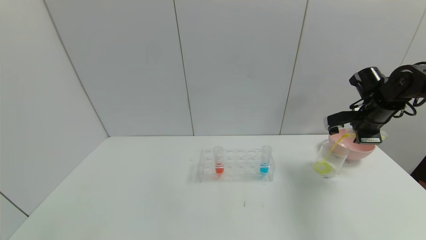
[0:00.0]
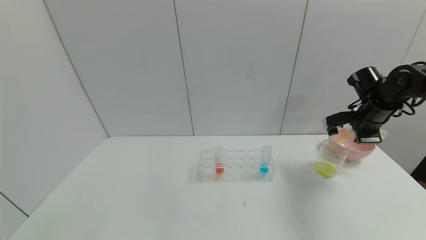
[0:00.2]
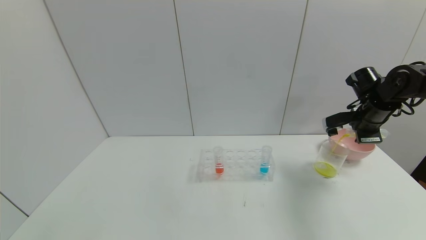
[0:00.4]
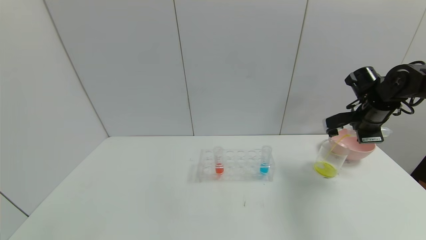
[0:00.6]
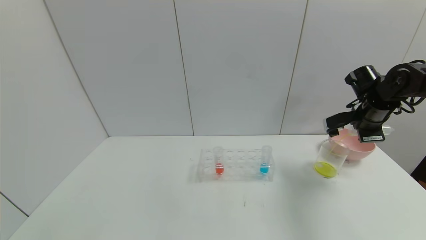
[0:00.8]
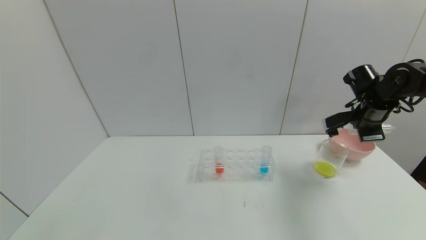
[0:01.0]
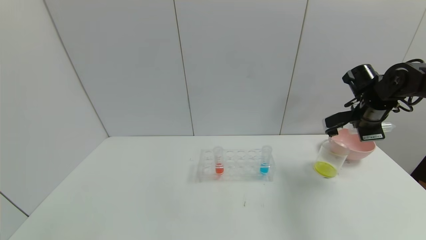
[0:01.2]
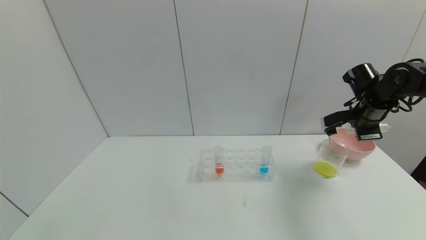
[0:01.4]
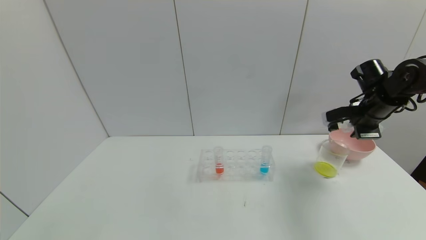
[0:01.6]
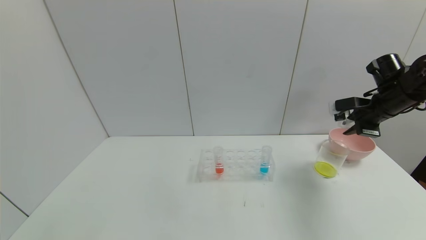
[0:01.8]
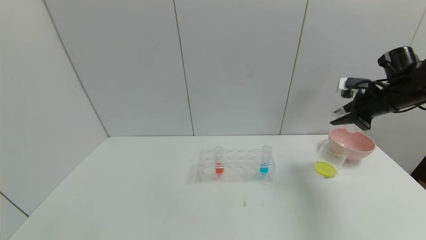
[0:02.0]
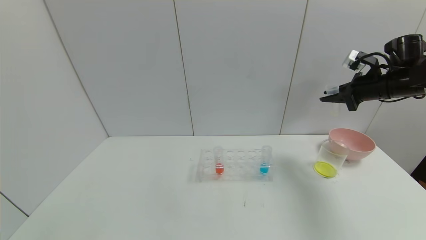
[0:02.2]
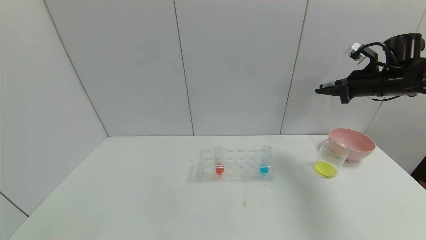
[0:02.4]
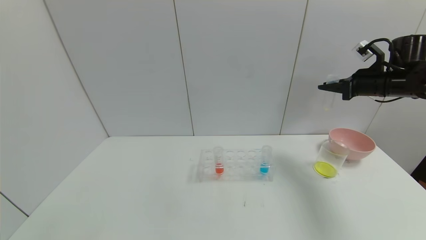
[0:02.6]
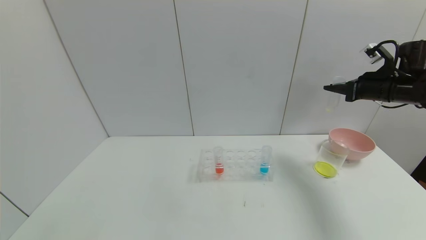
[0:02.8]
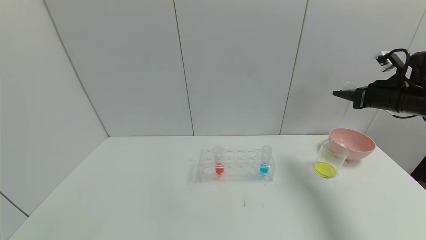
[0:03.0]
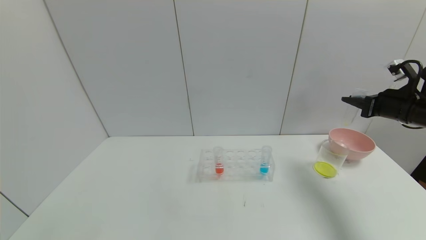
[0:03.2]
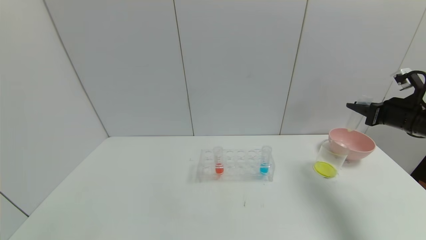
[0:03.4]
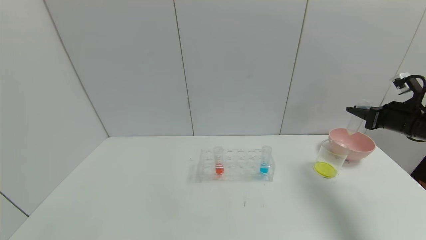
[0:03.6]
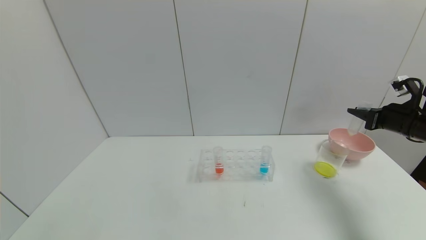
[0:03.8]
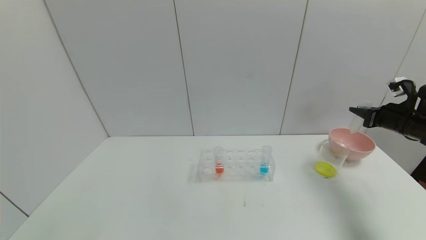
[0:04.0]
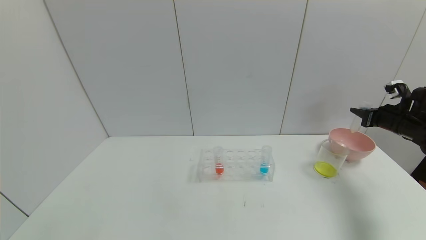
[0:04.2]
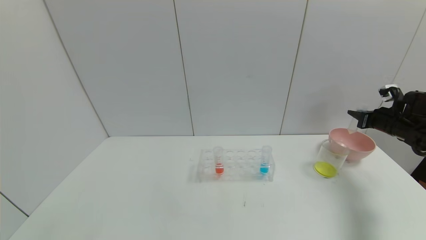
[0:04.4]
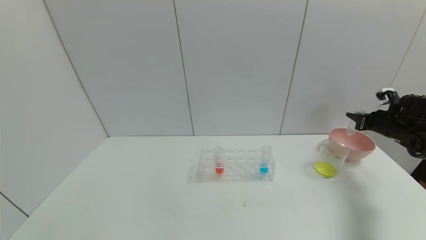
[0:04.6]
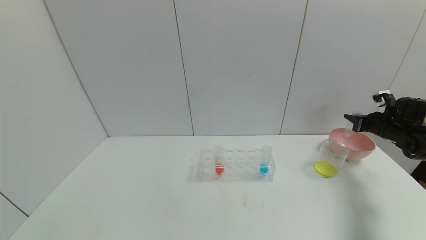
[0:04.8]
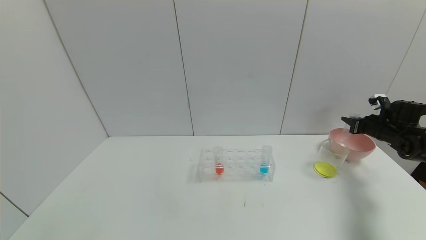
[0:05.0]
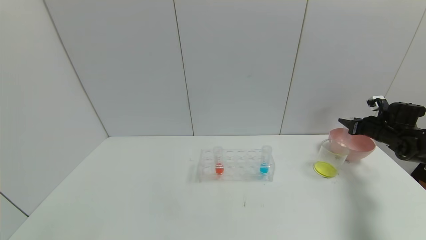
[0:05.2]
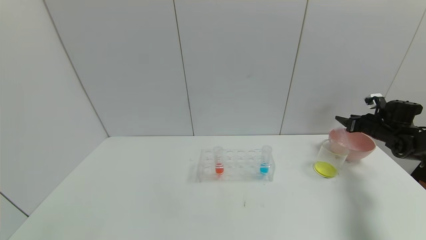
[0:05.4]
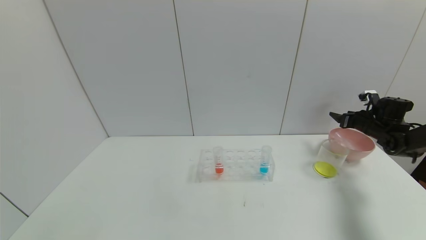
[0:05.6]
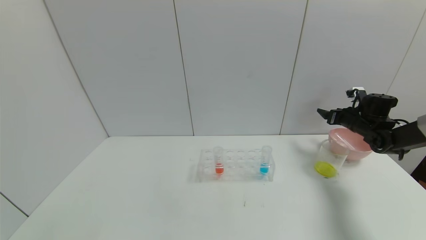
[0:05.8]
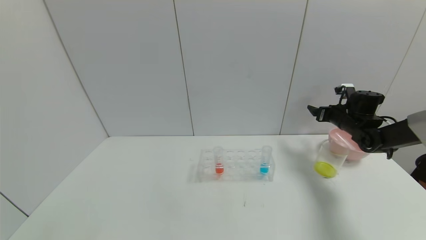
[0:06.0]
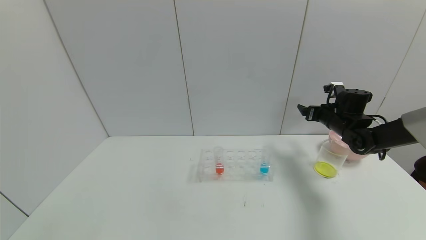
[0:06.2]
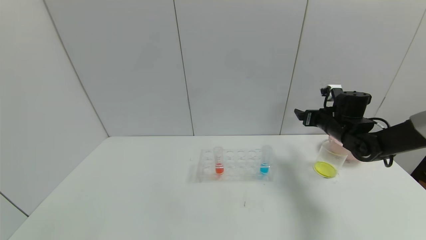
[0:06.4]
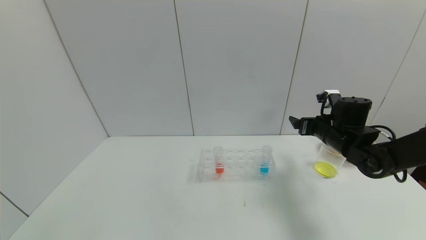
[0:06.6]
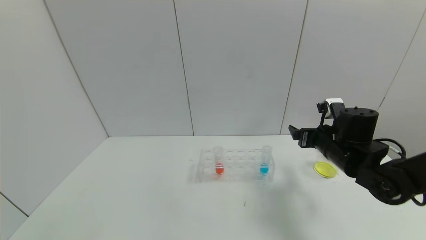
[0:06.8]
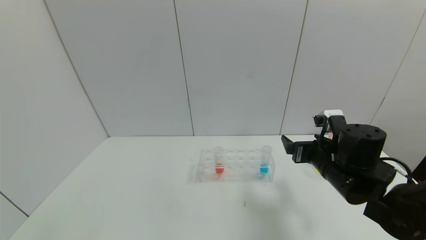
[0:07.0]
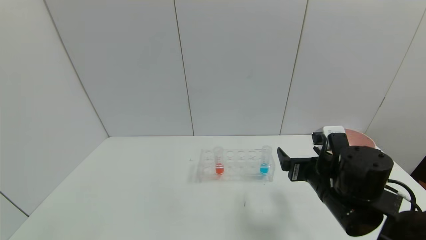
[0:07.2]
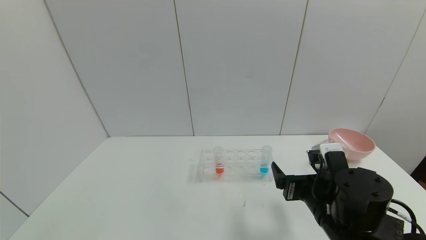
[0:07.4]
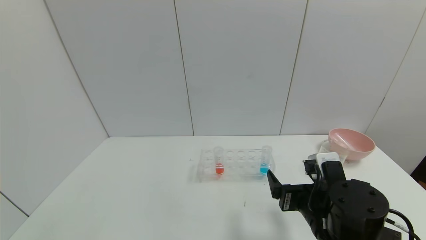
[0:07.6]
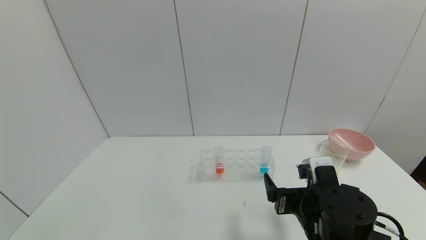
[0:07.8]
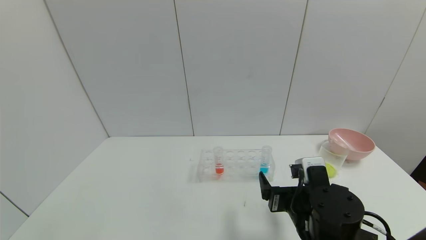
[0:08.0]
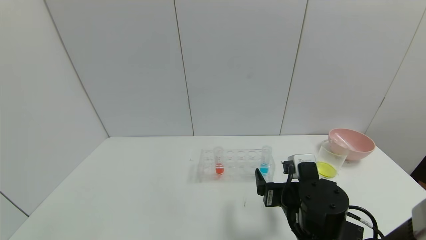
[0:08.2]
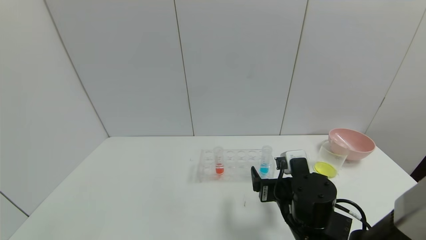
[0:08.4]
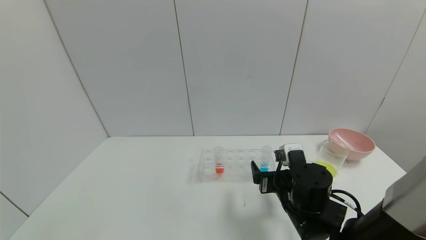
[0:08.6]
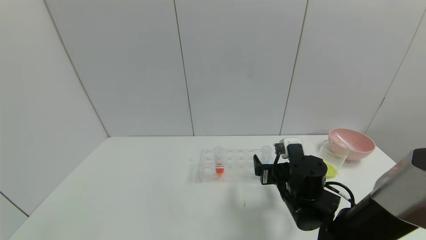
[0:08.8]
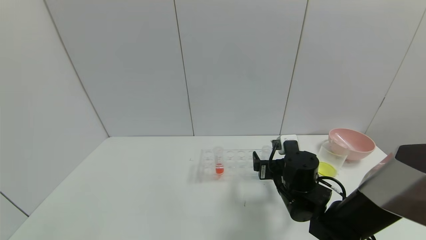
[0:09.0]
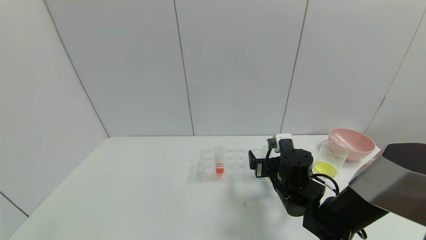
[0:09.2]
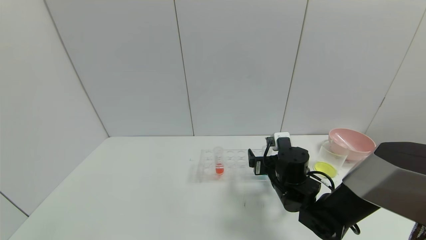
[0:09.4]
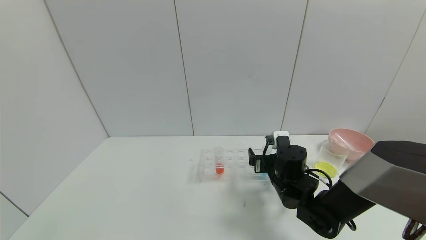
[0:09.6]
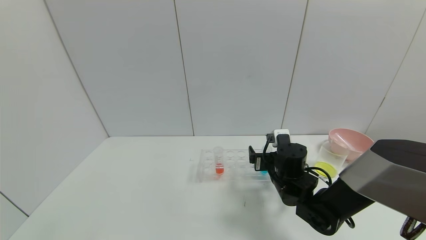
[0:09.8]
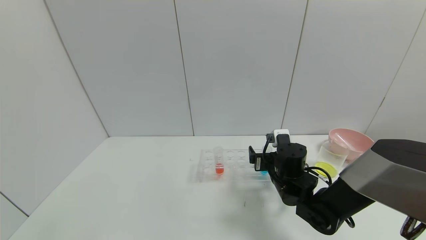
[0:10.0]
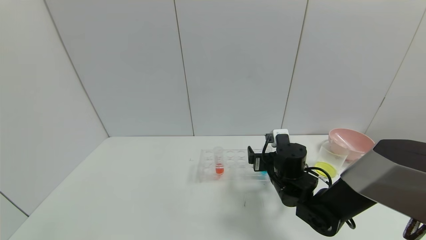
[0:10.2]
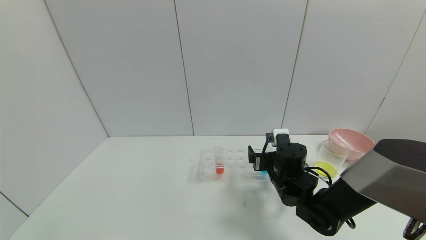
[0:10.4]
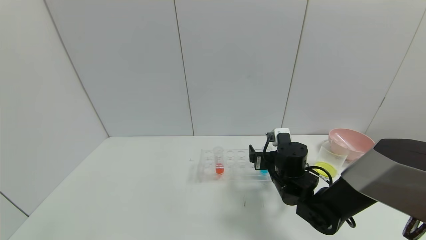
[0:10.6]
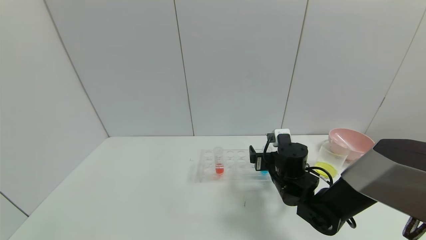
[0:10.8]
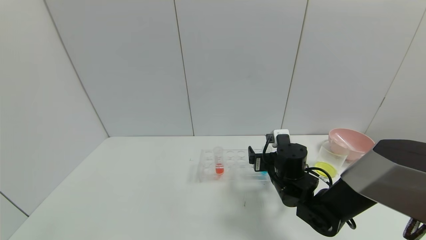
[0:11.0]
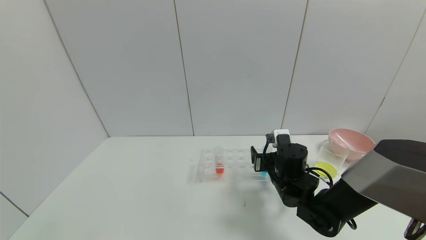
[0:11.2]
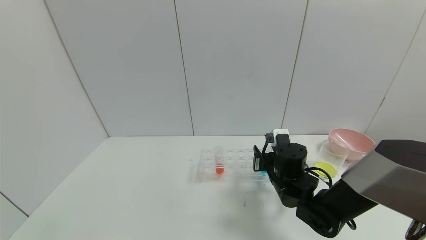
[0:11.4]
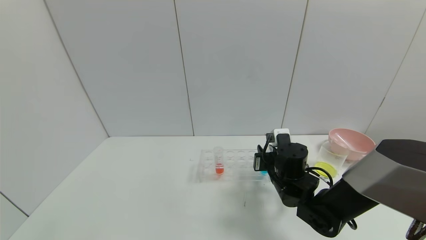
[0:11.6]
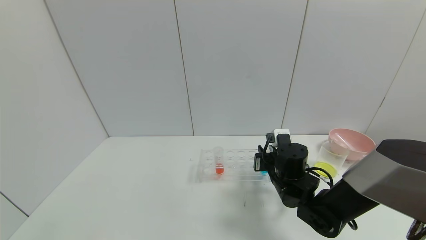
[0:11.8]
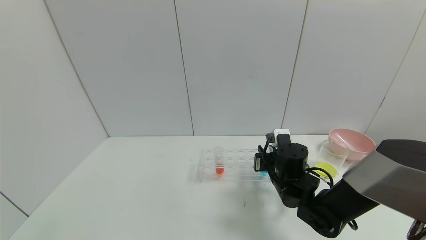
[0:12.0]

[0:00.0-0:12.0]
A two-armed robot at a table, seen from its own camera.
Task of the whole recording: pick up the test tube with yellow pigment and the test tube with blue pigment by grippers and pour them into the beaker.
Step, 0:00.0 to 0:03.0: Pour the yellow reagent into the graduated cylinder with right gripper.
Step, 0:03.2 to 0:06.2: Place the test tube into the bowl with right gripper.
0:00.0 to 0:01.6: There are only small adjustments of the grippers.
0:01.6 to 0:03.0: The right gripper changes place by some 5 cm.
0:03.0 to 0:04.4: The right gripper travels downward and to the right by roughly 10 cm.
0:04.4 to 0:06.0: The right gripper heads to the left and forward, covering approximately 10 cm, and opens.
0:06.0 to 0:07.6: The right gripper goes roughly 35 cm backward and to the left.
0:07.6 to 0:09.0: The right gripper goes some 10 cm forward.
0:09.0 to 0:10.4: The grippers move only a little.
0:10.4 to 0:12.0: The right gripper closes its fingers.

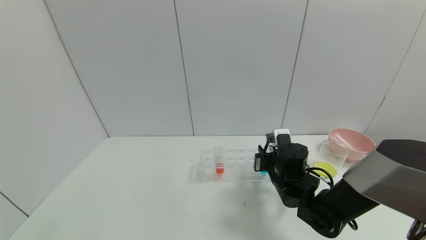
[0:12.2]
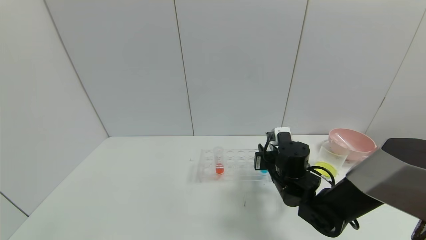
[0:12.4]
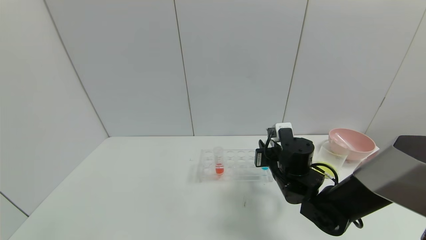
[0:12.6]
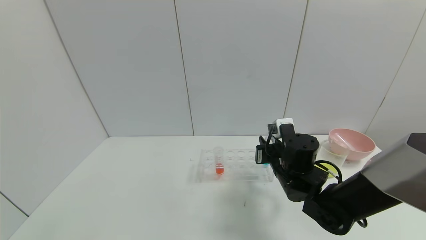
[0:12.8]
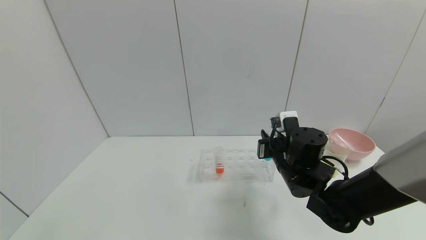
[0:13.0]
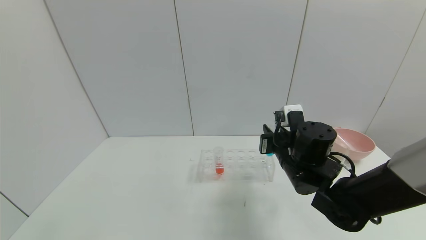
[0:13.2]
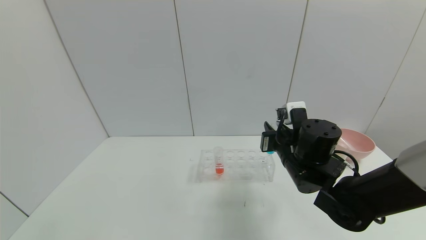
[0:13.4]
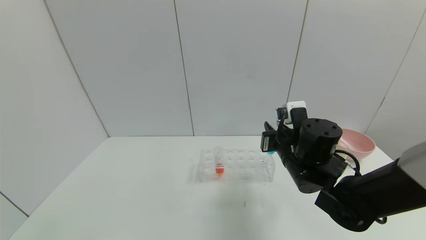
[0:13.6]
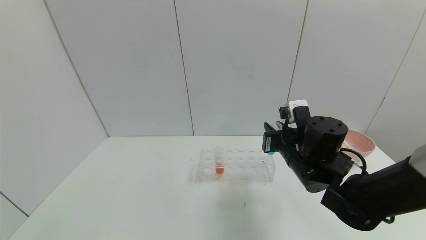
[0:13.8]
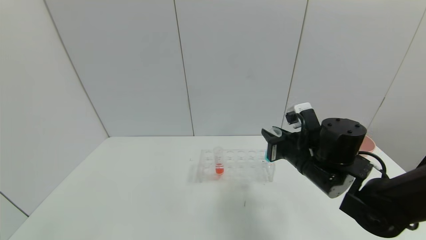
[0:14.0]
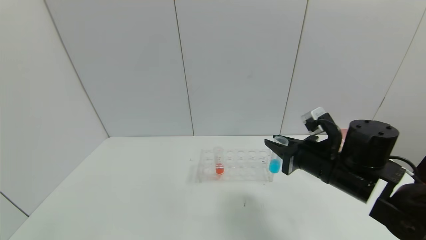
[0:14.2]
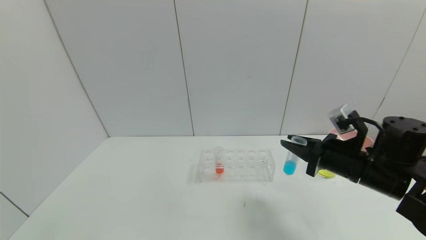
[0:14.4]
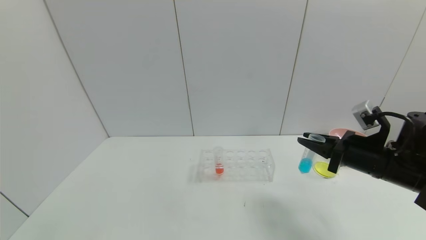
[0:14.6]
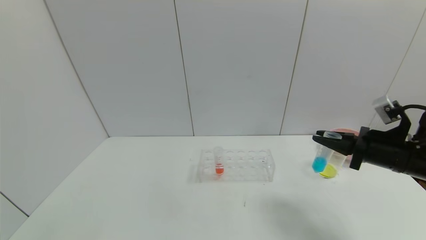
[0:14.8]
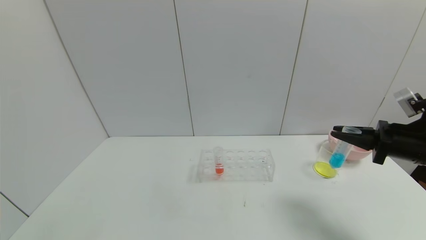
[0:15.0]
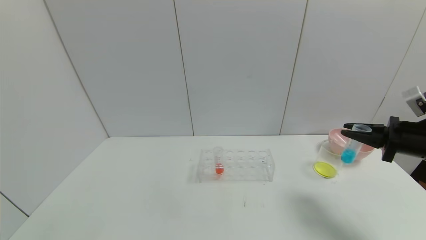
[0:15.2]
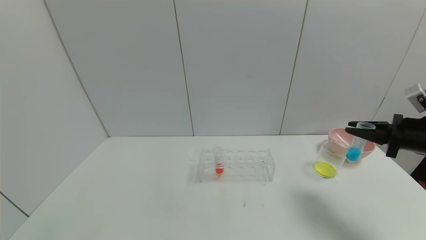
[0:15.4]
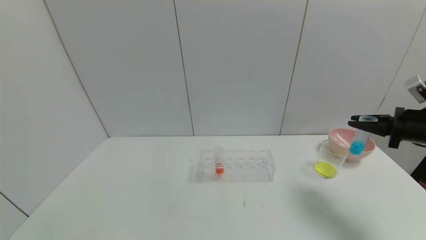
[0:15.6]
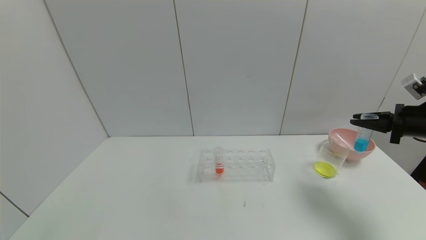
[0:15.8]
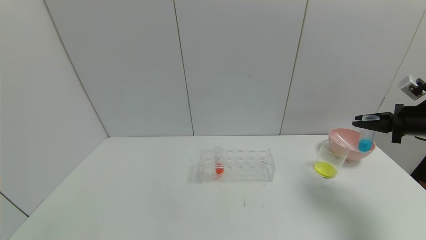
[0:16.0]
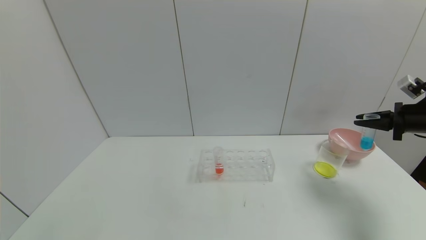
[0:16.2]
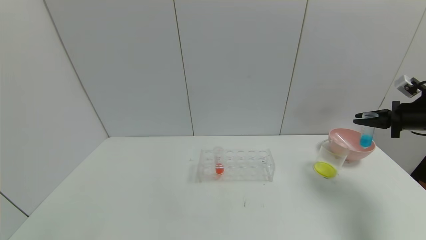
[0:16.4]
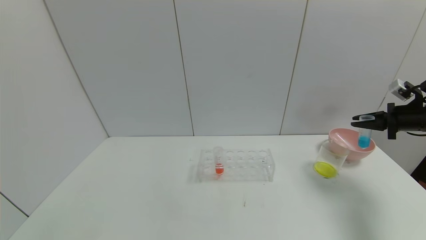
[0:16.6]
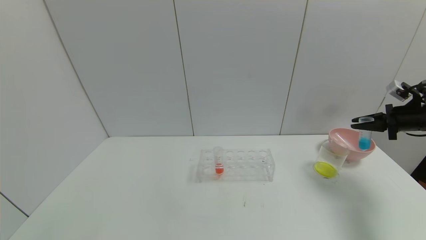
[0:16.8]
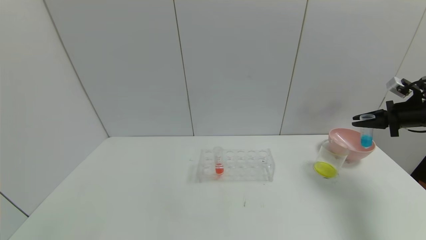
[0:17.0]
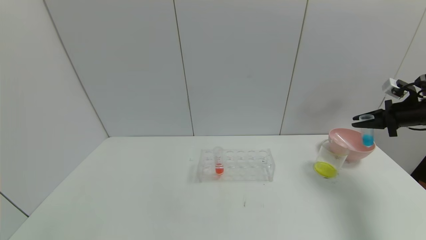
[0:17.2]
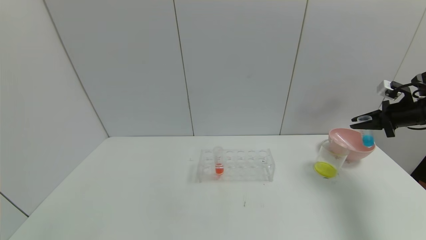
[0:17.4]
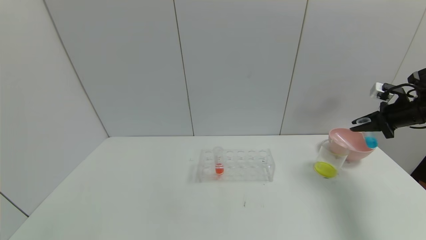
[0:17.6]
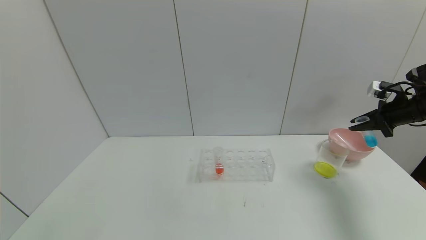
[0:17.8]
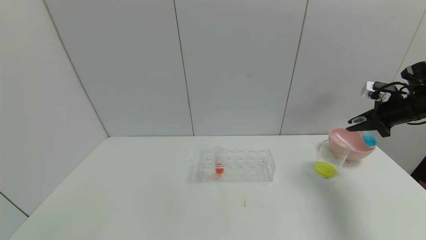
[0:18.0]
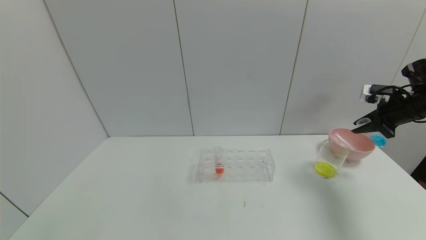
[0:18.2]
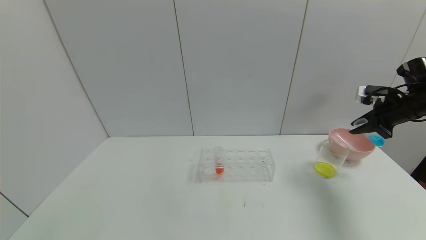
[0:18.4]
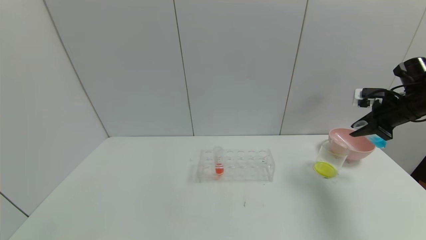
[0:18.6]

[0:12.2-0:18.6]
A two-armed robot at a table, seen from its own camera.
Task of the whole recording: pick up the test tube with yellow pigment and the test tube with blue pigment by grippers and pour them into the beaker.
Step, 0:12.2 to 0:15.4: Pick up the test tube containing the blue reagent with right gripper.
0:12.2 to 0:13.8: The right gripper heads upward, covering roughly 10 cm.
0:13.8 to 0:15.4: The right gripper travels to the right by some 25 cm.
0:15.4 to 0:17.0: The right gripper travels forward and to the right by some 10 cm.
0:17.0 to 0:18.6: The right gripper goes some 5 cm to the left.
